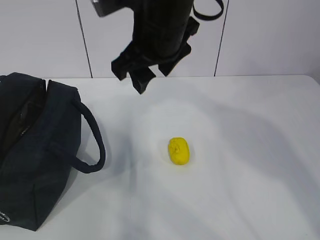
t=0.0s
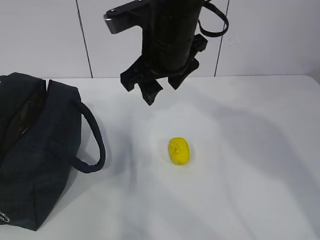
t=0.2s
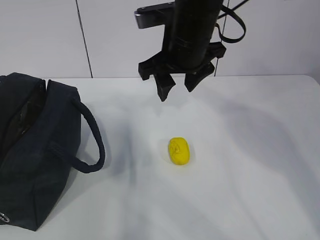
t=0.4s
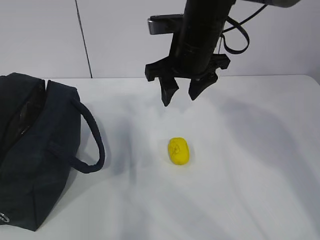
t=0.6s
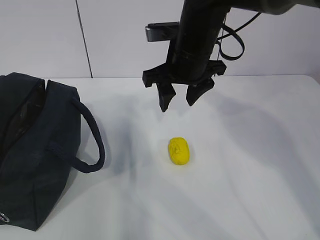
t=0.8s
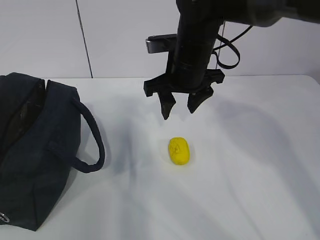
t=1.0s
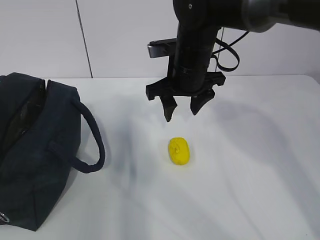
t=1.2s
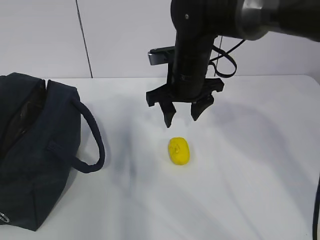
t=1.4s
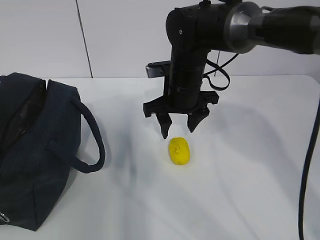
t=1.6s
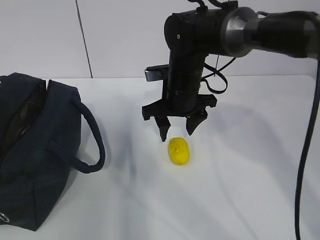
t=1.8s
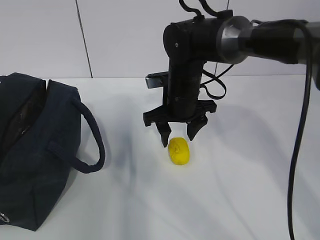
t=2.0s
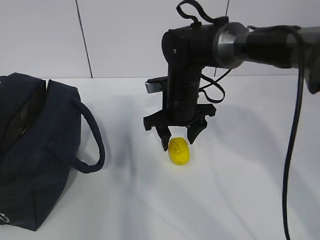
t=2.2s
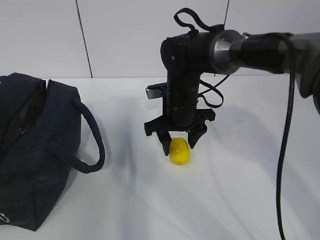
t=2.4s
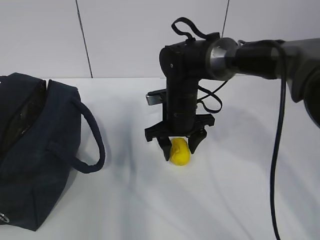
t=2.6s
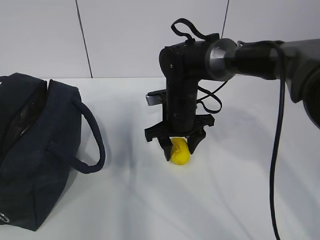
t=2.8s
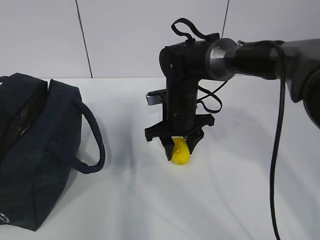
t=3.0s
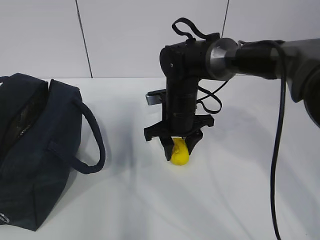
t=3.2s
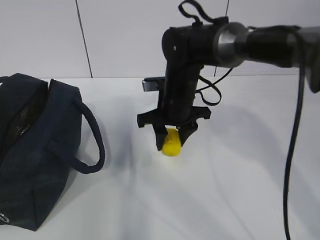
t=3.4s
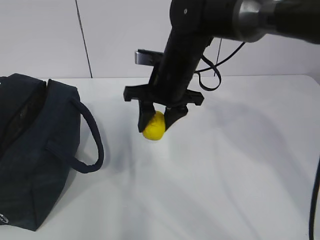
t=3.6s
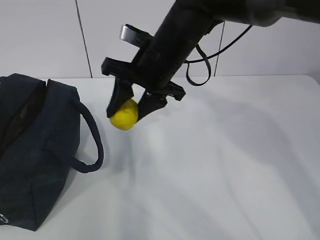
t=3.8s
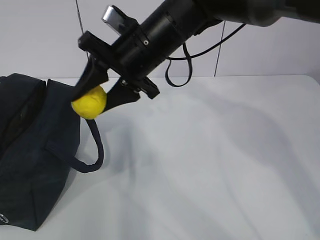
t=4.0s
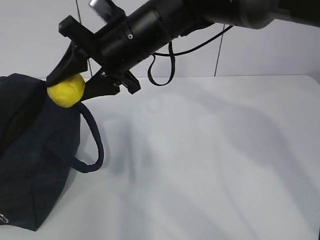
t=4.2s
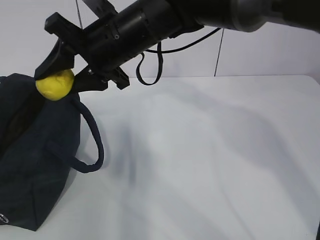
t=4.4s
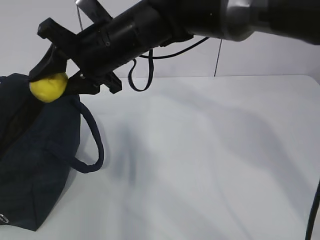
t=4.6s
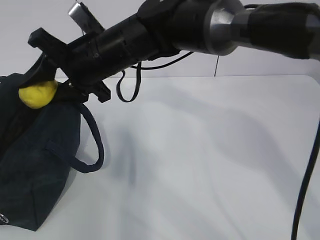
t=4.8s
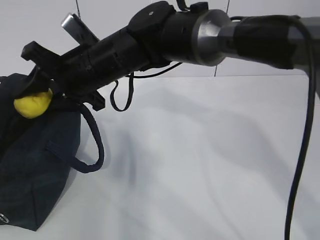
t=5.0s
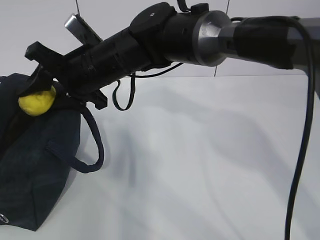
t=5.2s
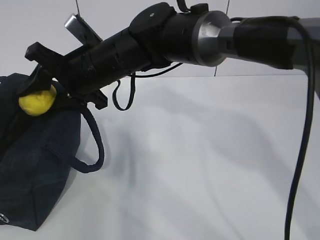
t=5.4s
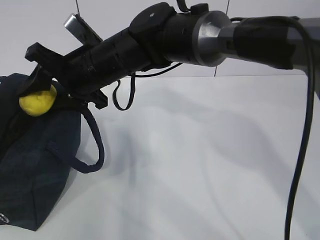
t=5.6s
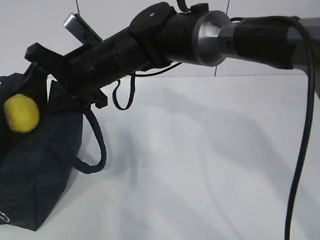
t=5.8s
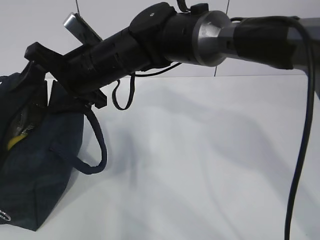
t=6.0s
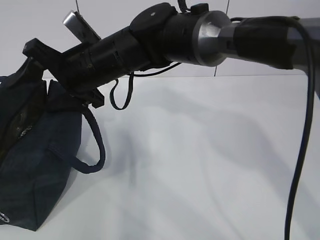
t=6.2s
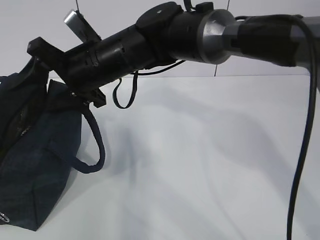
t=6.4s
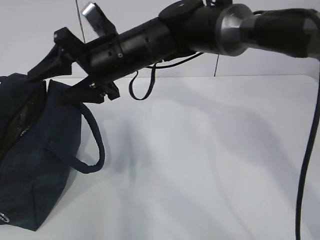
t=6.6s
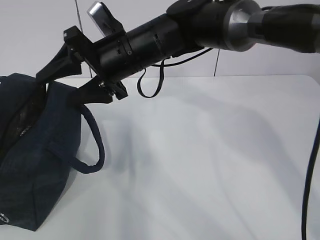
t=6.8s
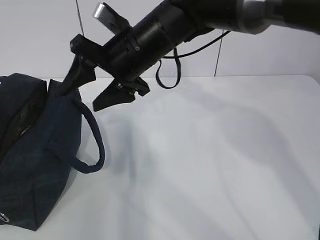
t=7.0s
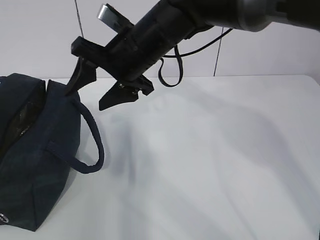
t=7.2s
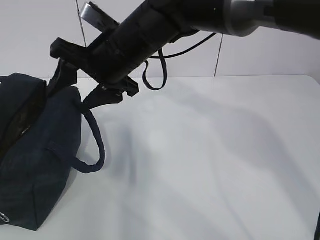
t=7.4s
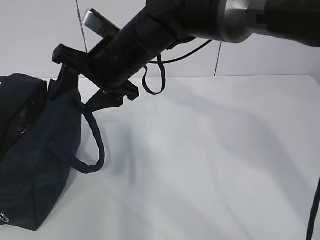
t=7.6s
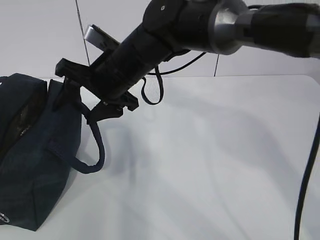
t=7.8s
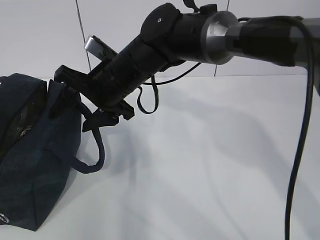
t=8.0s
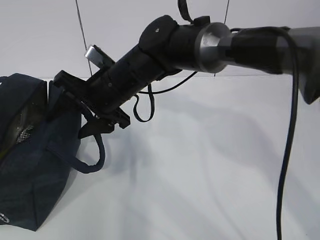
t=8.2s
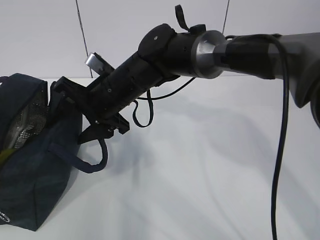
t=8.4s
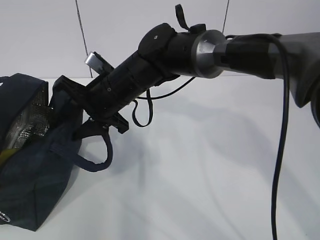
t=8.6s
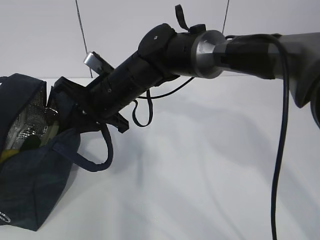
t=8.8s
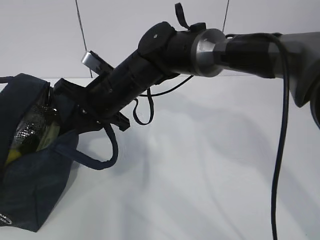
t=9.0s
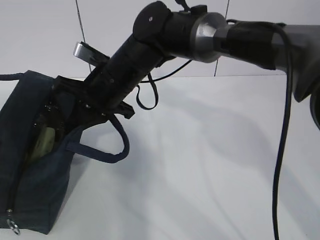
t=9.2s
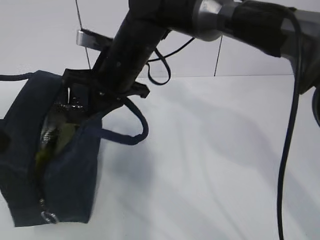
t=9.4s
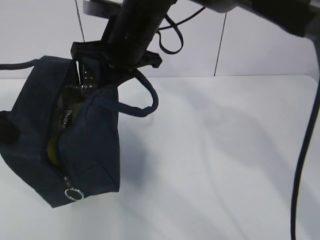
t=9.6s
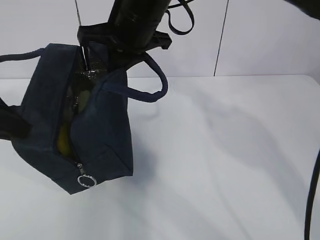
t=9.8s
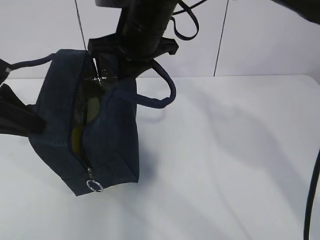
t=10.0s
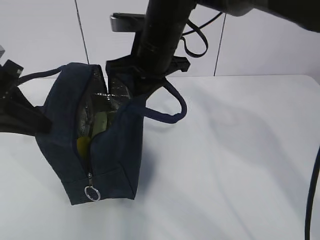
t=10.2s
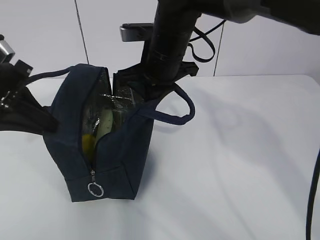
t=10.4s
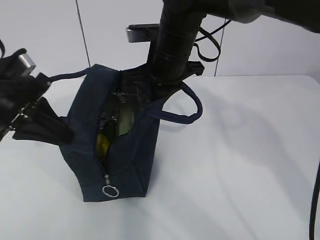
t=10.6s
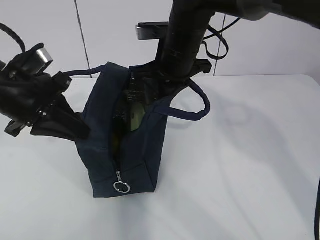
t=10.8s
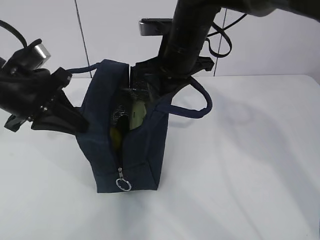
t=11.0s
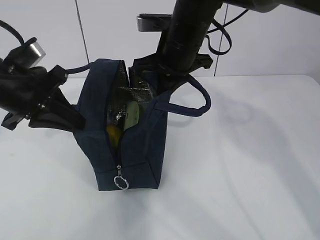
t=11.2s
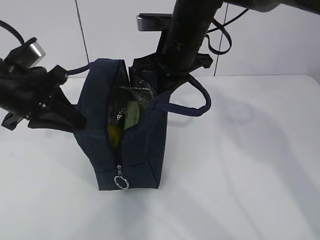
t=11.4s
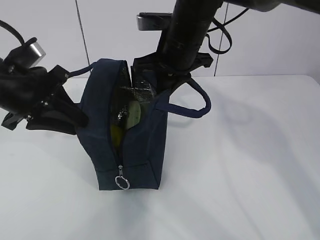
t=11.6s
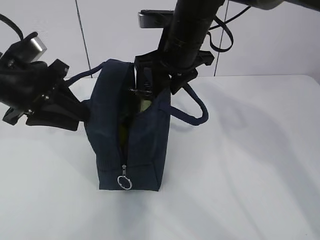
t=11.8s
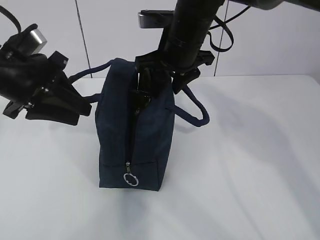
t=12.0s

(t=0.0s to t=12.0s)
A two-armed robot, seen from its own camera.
Step, t=0.0s - t=1.8s: Move the lunch bag to the right.
t=0.0s - t=1.6s: The right gripper heads downward and forward, covering about 15 cm.
t=1.6s - t=3.0s: The right gripper moves downward, approximately 5 cm.
t=3.0s - t=4.4s: The right gripper moves upward and to the left, about 20 cm.
t=4.4s - t=6.0s: The right gripper changes place by about 5 cm.
t=7.6s - t=9.0s: The right gripper goes approximately 5 cm downward, and closes up.
t=9.0s - t=10.4s: The left gripper travels forward by roughly 5 cm; the right gripper travels to the right and upward by roughly 10 cm.
t=10.4s - t=12.0s: The left gripper opens its fingers. Meanwhile the right gripper opens its fingers.

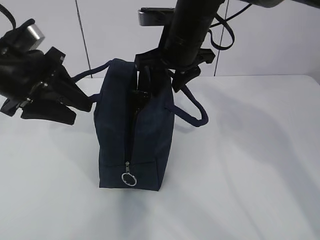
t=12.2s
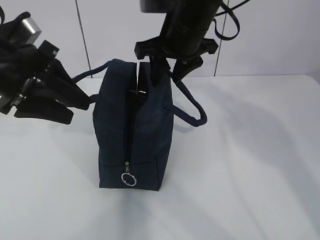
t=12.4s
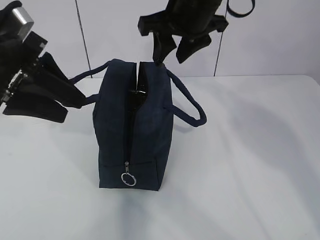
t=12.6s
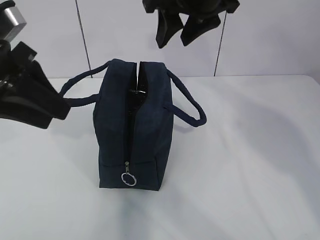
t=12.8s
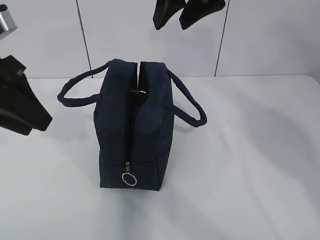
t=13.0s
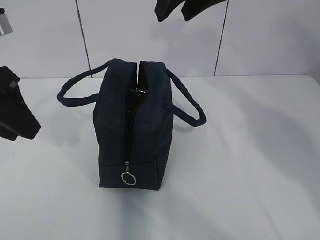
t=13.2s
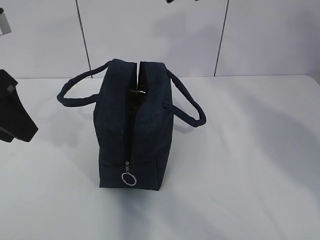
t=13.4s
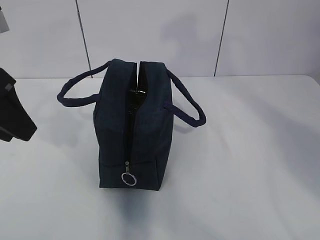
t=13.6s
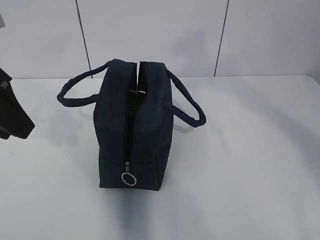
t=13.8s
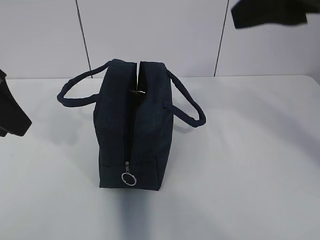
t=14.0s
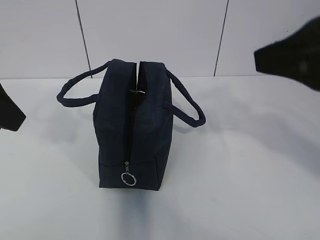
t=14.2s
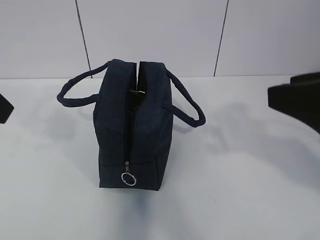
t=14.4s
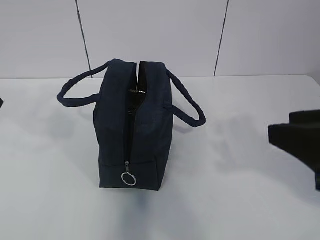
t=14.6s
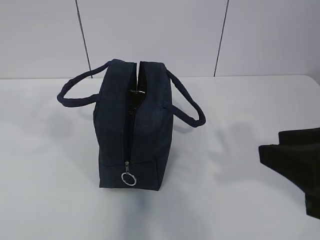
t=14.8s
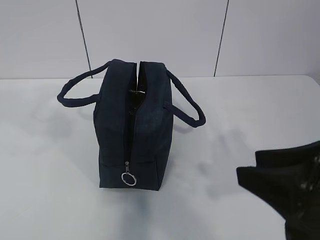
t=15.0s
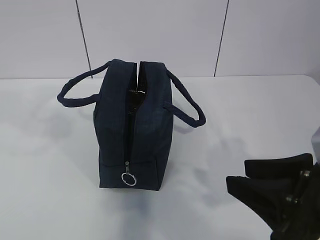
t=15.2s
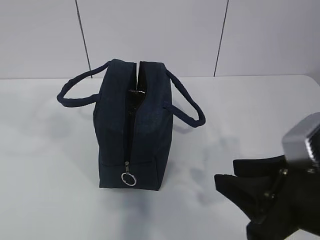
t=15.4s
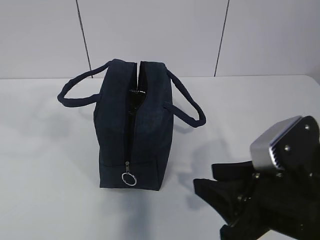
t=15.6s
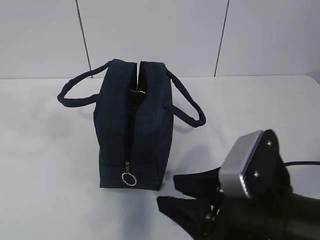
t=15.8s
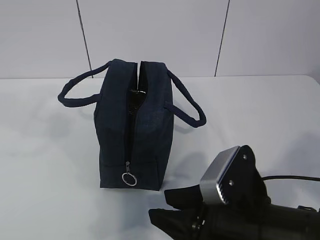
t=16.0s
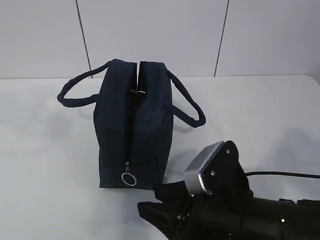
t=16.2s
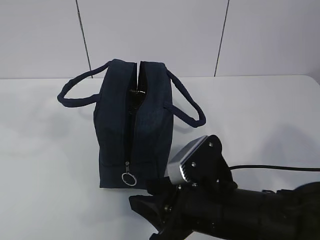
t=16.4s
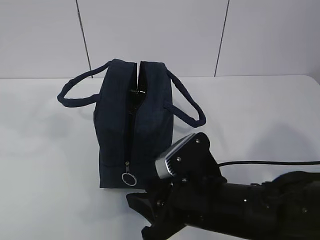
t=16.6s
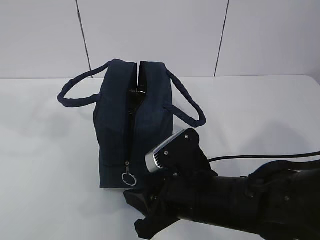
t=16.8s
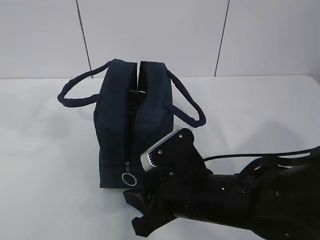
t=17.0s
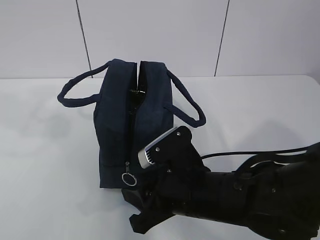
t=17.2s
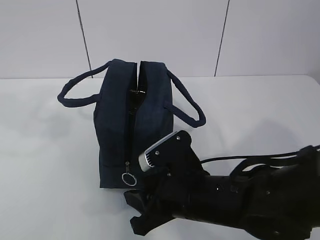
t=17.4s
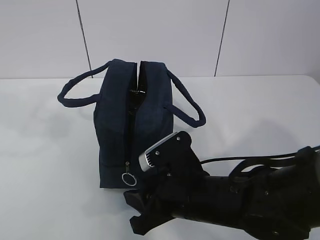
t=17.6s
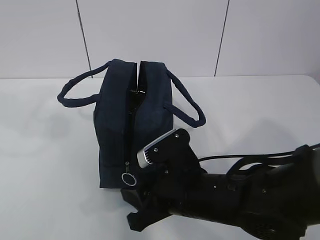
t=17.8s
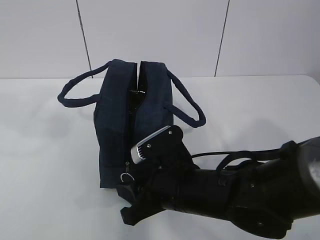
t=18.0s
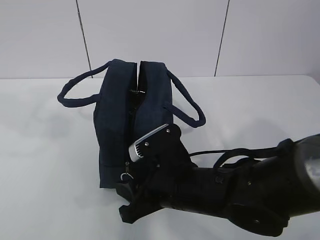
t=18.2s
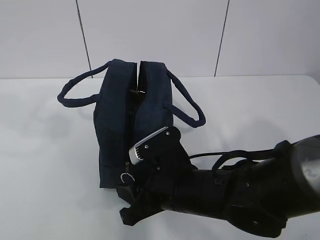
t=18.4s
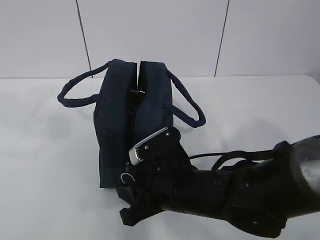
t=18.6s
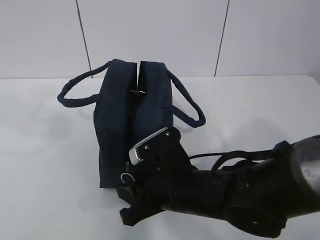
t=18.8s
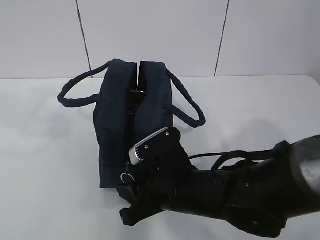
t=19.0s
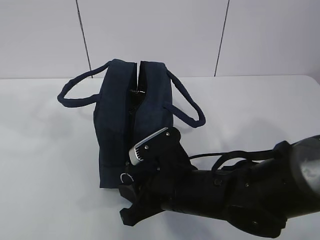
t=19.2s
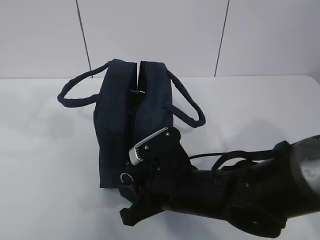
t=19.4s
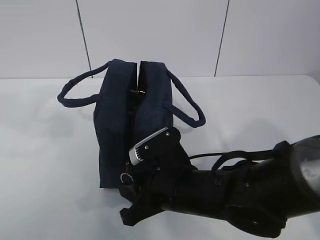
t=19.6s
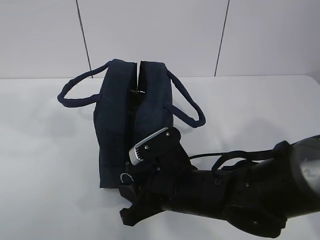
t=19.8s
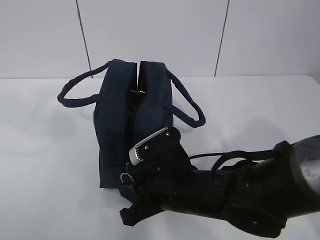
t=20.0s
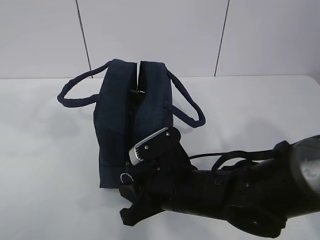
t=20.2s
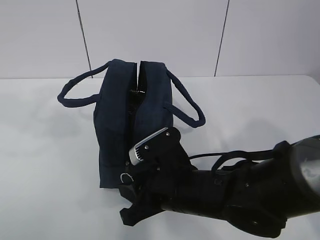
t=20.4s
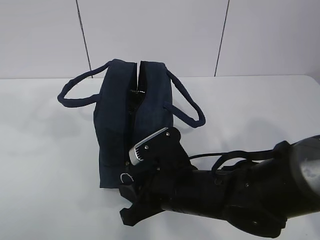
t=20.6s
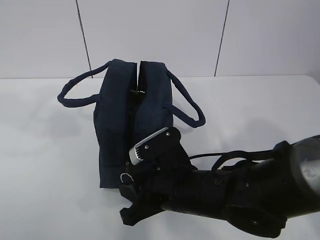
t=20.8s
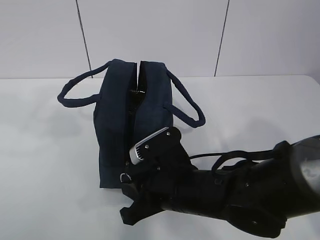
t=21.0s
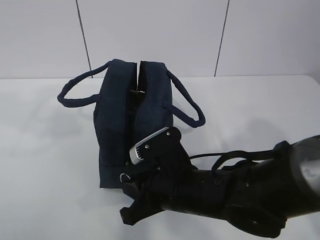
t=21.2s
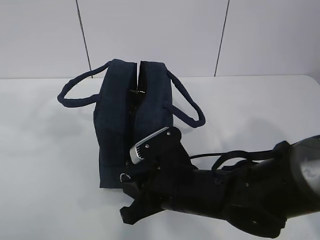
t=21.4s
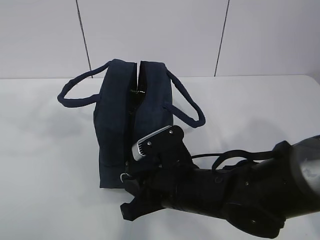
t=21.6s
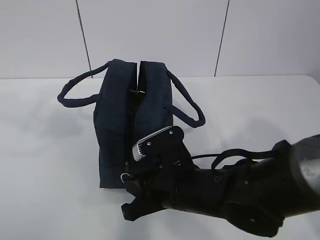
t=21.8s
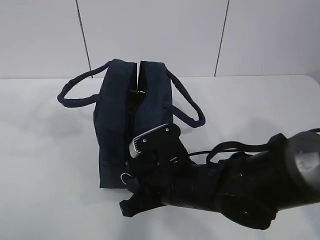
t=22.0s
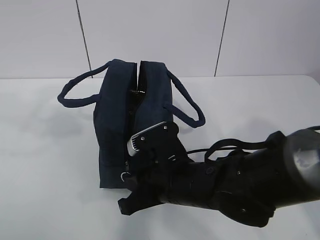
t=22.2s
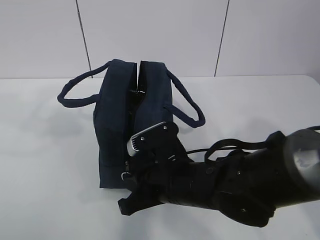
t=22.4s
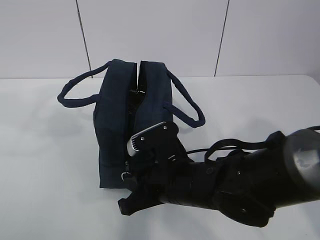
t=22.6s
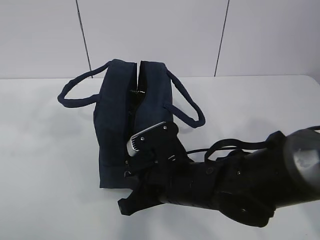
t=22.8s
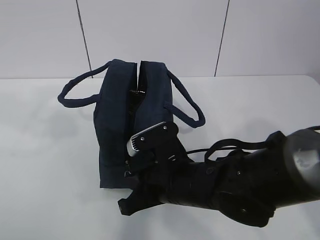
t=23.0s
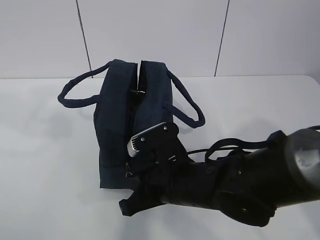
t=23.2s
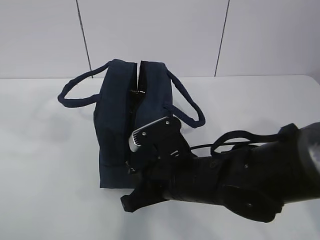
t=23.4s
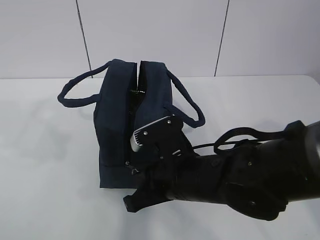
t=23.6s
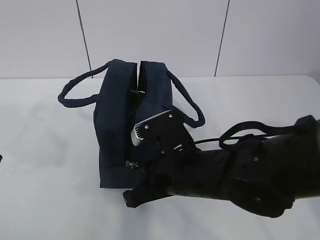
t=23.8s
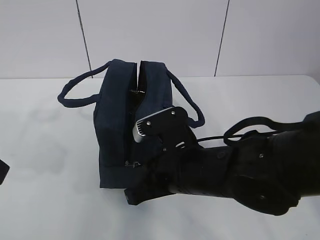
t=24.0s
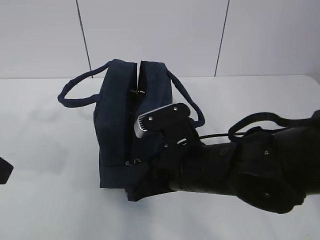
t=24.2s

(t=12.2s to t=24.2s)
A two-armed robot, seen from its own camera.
Step, t=12.2s - t=17.0s: Grab the lunch bag with your left hand.
Step, t=17.2s - t=23.2s: Pull the zipper with your right hand.
Step, t=23.4s - t=23.8s: Grab the lunch bag with your left hand.
t=12.2s - t=13.8s: The right gripper goes about 25 cm upward and backward. The left gripper moves backward and upward, some 10 cm.
t=13.8s - t=15.2s: The left gripper heads backward and upward, covering some 10 cm. Meanwhile the right gripper is displaced downward and backward by roughly 25 cm.
t=15.2s - t=16.6s: The right gripper goes roughly 15 cm to the left, downward and forward.
t=16.6s - t=18.2s: The right gripper moves roughly 5 cm.
t=18.2s - t=19.8s: Neither gripper changes place.
t=19.8s - t=21.2s: Both grippers stay about where they are.
t=21.2s - t=22.6s: The grippers make only small movements.
t=22.6s - t=24.2s: The left gripper goes some 10 cm downward.
